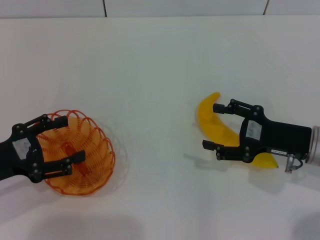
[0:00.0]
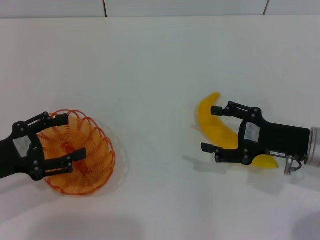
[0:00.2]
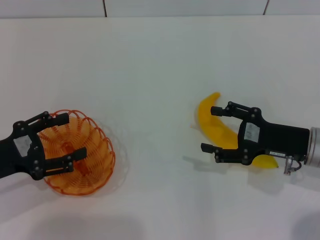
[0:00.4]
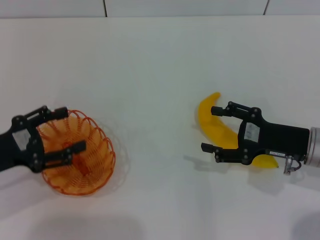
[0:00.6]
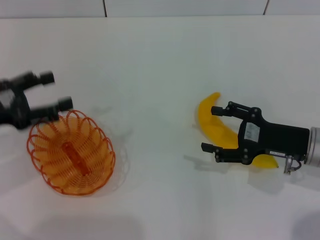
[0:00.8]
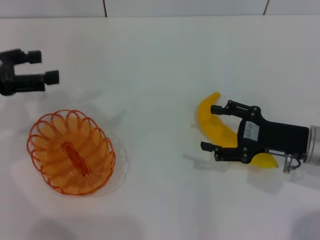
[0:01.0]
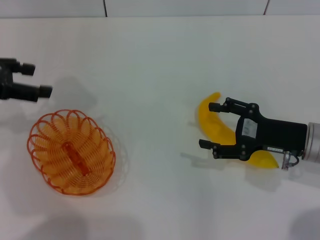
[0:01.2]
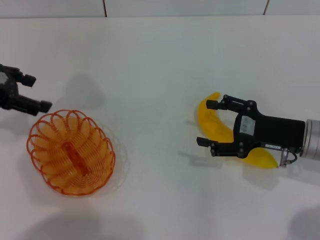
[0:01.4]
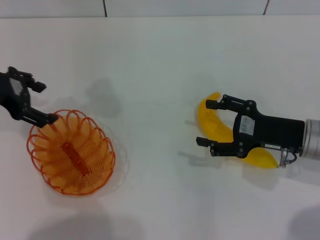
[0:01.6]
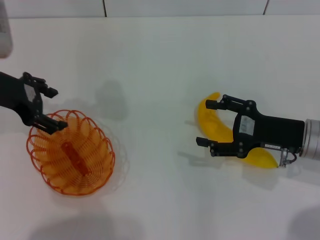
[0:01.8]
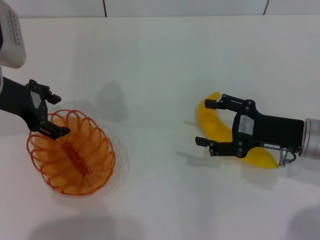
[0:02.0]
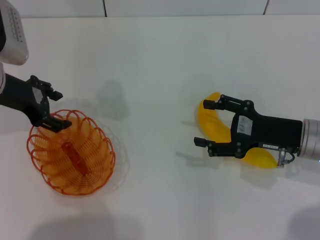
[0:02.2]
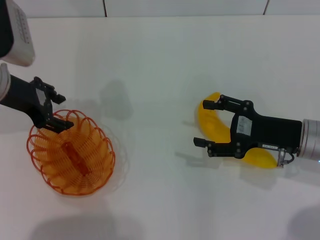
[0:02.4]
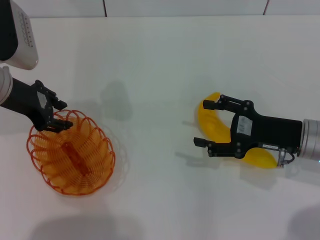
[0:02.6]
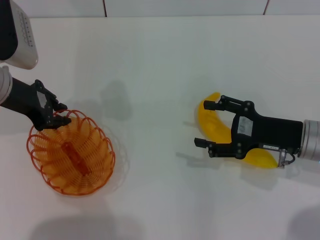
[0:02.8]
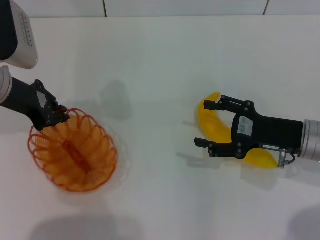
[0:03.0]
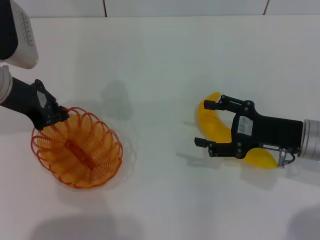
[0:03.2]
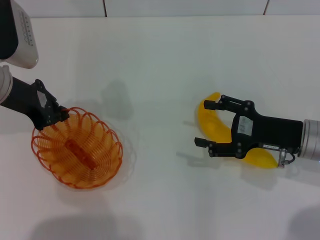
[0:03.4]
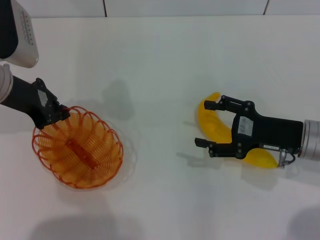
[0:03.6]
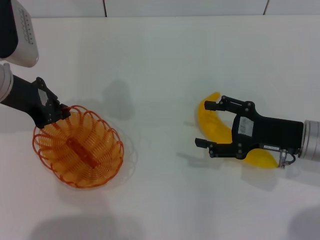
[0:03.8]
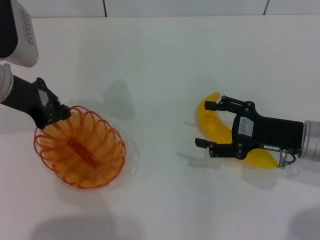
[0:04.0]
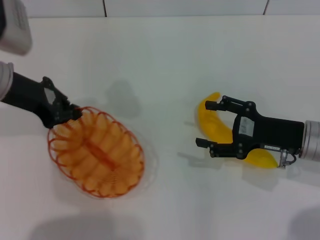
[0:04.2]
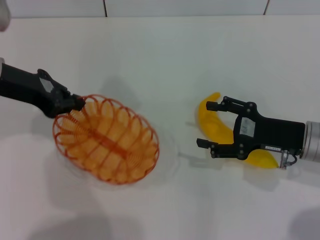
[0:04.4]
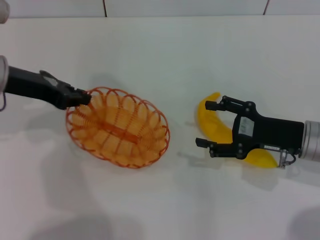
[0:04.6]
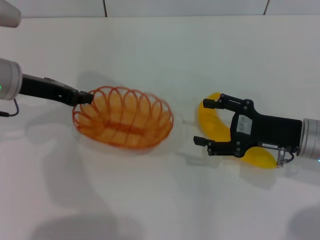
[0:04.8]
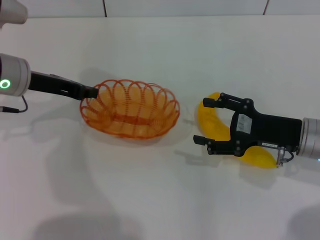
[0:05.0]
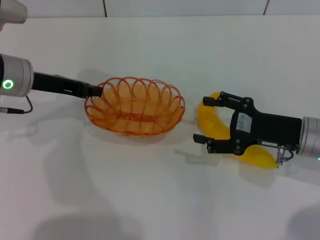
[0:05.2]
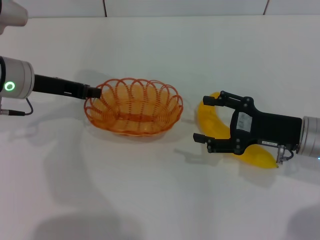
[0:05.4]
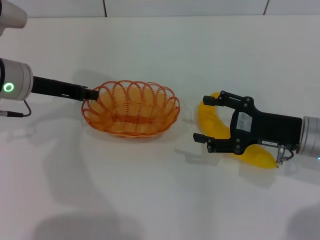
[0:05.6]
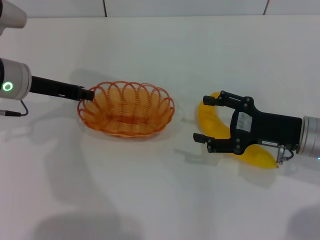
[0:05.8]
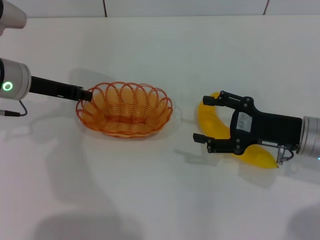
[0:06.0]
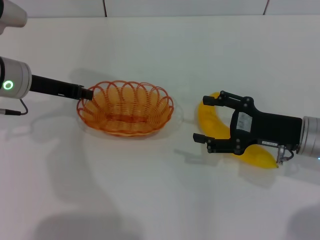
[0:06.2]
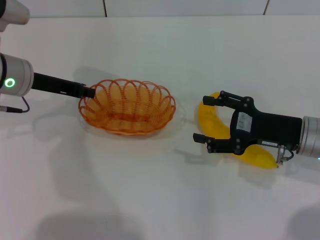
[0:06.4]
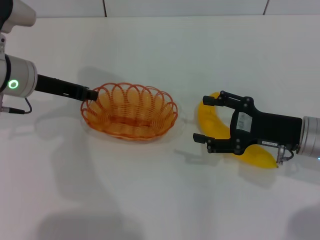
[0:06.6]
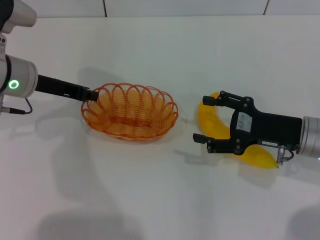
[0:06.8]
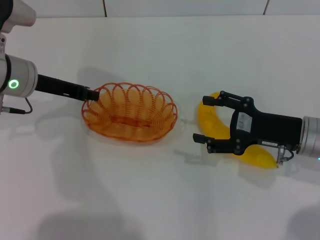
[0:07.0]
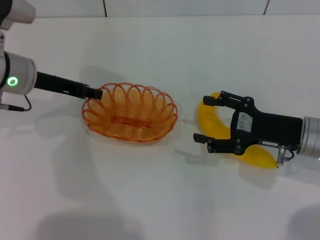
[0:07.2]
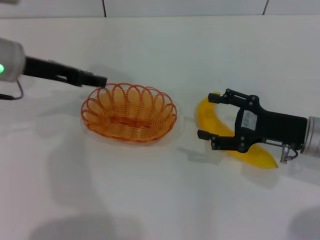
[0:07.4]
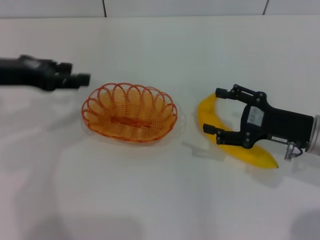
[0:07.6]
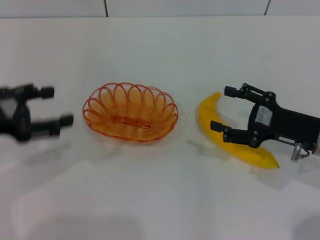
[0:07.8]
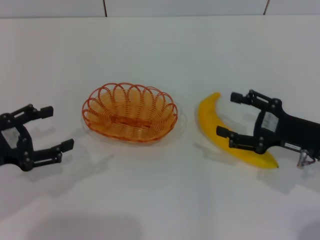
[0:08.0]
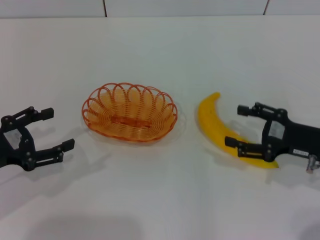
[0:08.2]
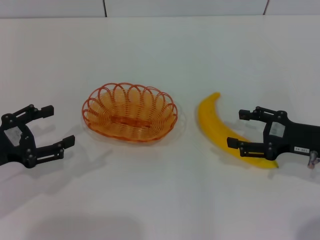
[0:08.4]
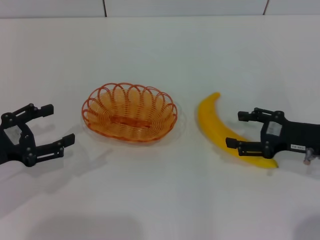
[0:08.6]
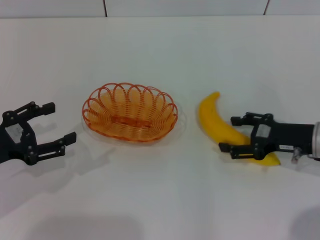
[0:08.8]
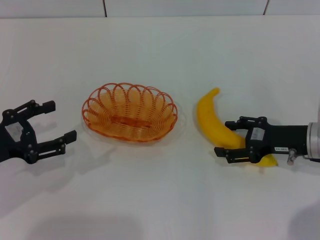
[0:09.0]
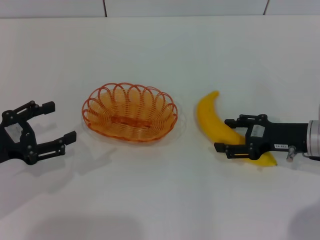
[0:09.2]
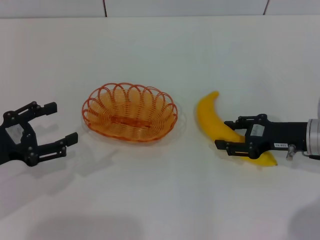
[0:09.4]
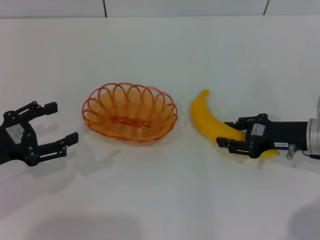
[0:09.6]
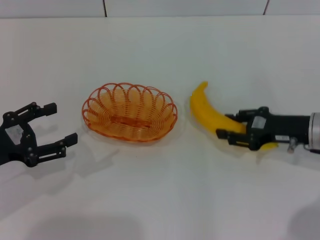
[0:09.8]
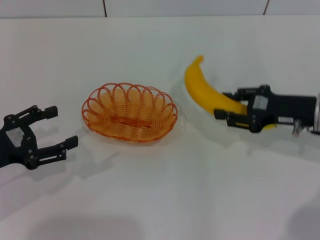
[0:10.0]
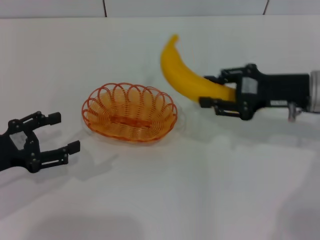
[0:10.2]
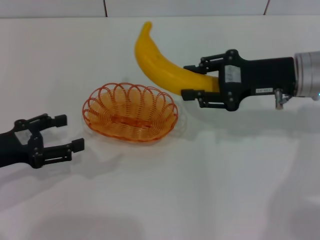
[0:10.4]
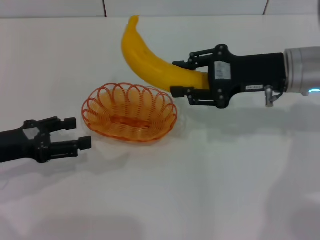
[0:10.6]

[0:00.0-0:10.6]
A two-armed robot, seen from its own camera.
Step, 0:00.0 to 0:04.2: Pick up the basket with the left gripper.
Step, 0:04.4 to 0:07.4: Place the basket in the center of view with the left gripper.
Step, 0:07.6 to 0:09.8: Pick up the banana with the right gripper.
0:00.0 to 0:01.6: The left gripper heads forward and upward, covering roughly 15 cm.
0:01.6 to 0:03.0: The left gripper closes up.
0:04.6 to 0:06.0: The left gripper ends up approximately 5 cm from where it was.
0:06.0 to 0:07.6: The left gripper shifts some 10 cm upward and backward, and opens.
0:07.6 to 0:09.0: The left gripper shifts about 15 cm downward and backward, and opens.
0:09.0 to 0:10.6: The right gripper moves upward, to the left and forward, about 15 cm, and closes its fingers.

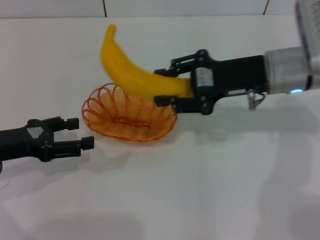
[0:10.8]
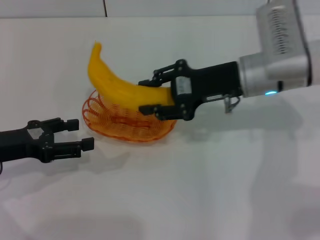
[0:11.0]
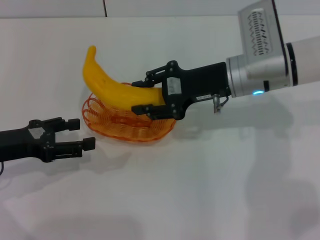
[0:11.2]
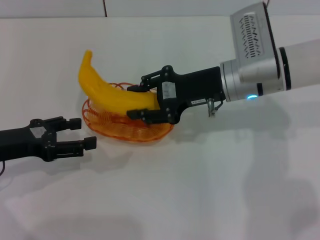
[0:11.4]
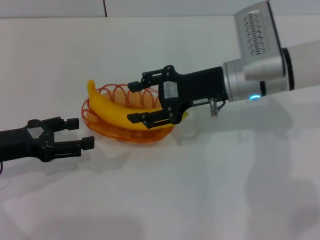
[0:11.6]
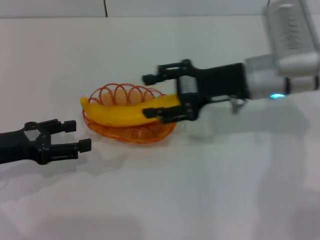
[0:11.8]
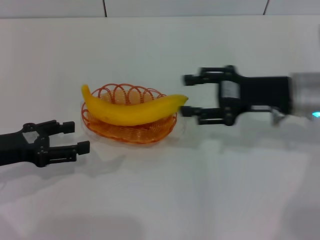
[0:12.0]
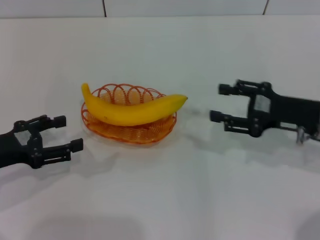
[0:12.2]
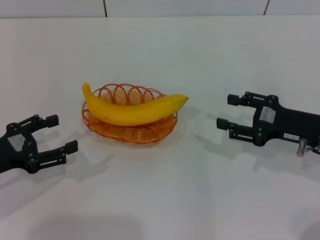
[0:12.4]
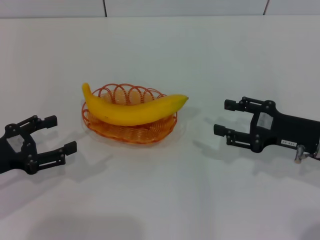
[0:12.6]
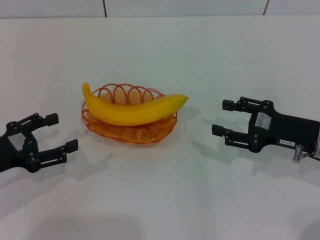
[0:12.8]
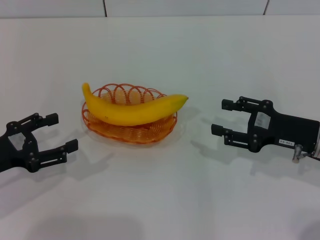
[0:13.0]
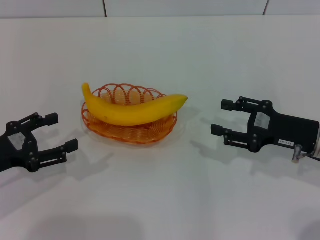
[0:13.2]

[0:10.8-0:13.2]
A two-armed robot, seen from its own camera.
Step, 0:10.8 to 0:11.8: Place the banana into the basket with the right gripper.
0:10.8 to 0:12.0: The right gripper ends up approximately 5 cm from where it was, and opens.
0:12.0 to 0:13.2: The right gripper goes some 10 cm downward and backward.
